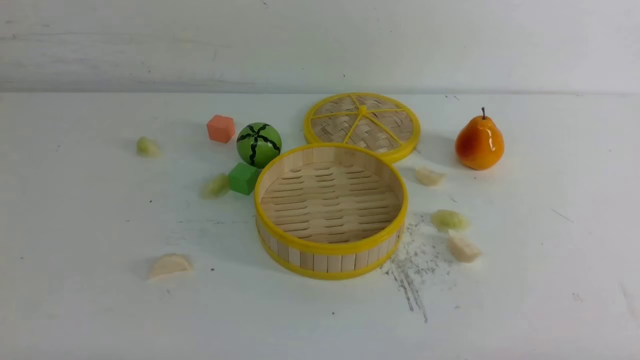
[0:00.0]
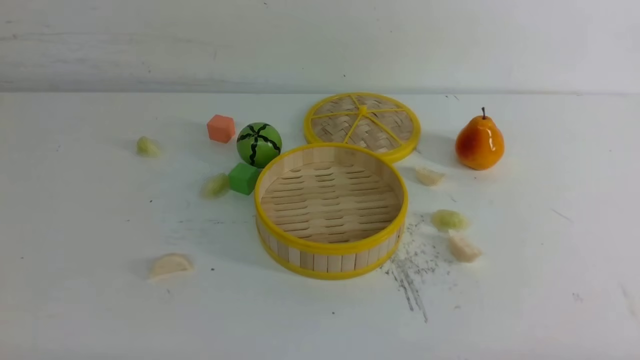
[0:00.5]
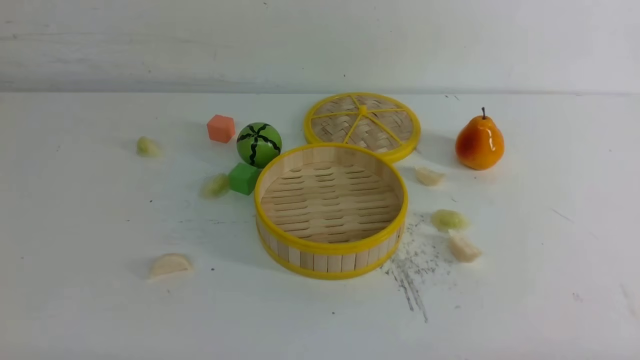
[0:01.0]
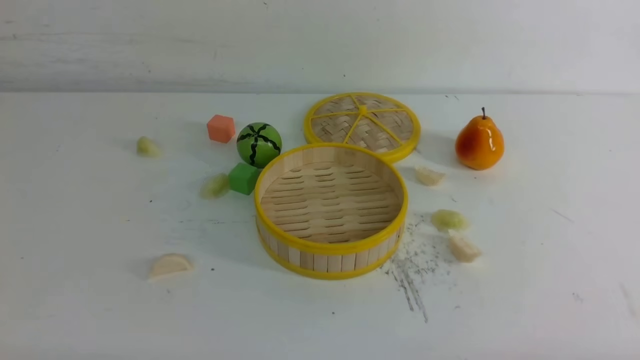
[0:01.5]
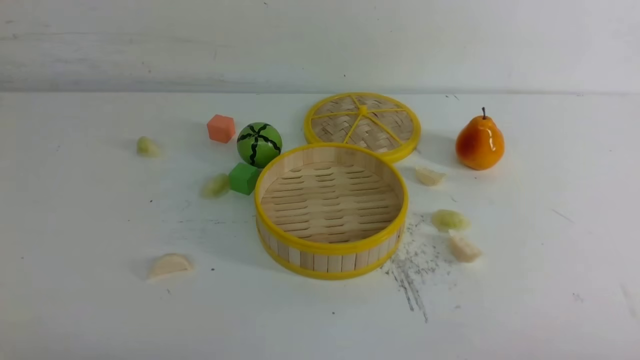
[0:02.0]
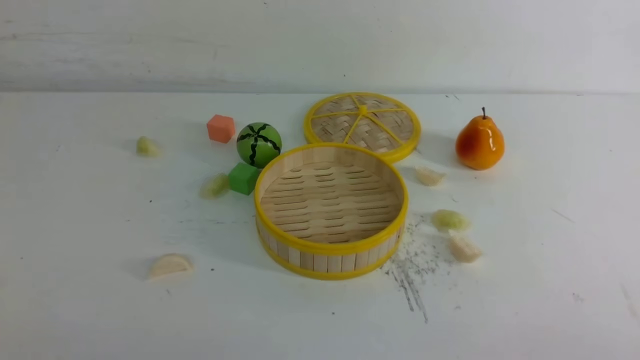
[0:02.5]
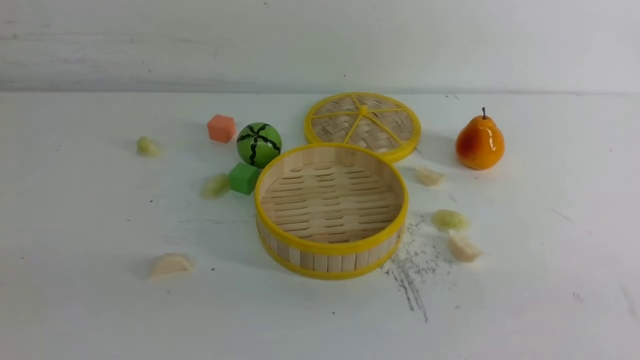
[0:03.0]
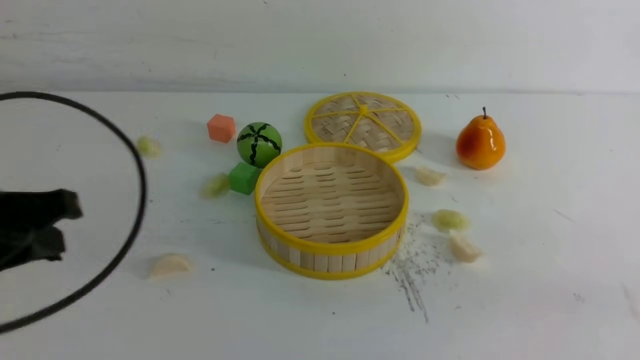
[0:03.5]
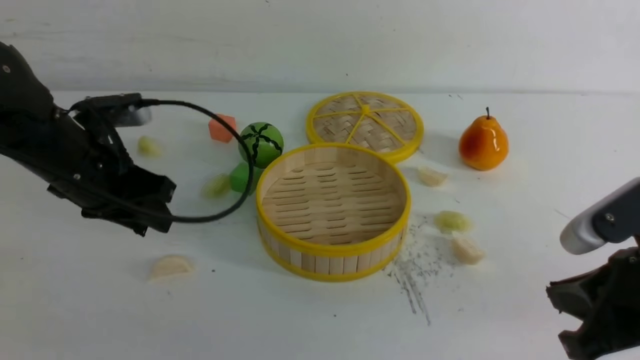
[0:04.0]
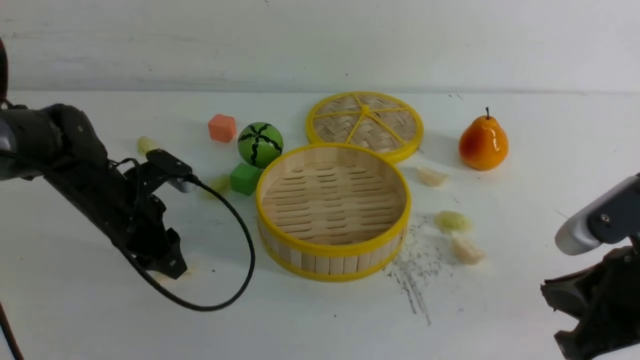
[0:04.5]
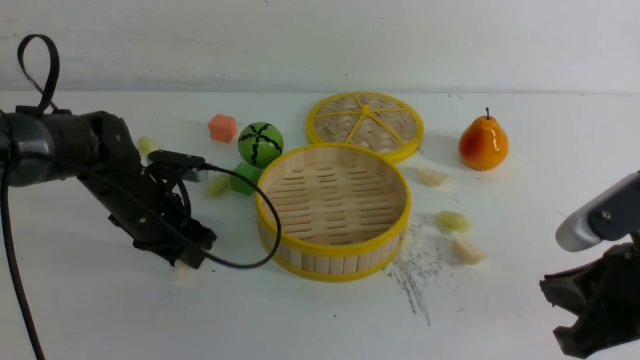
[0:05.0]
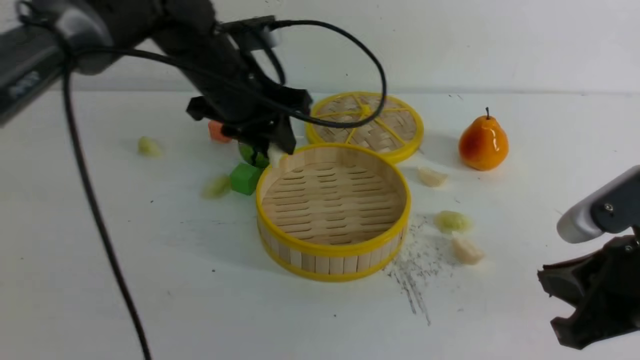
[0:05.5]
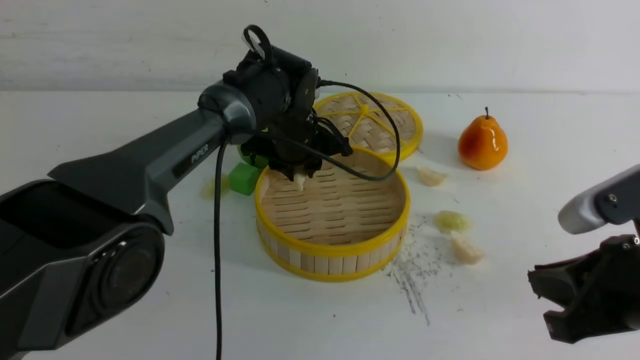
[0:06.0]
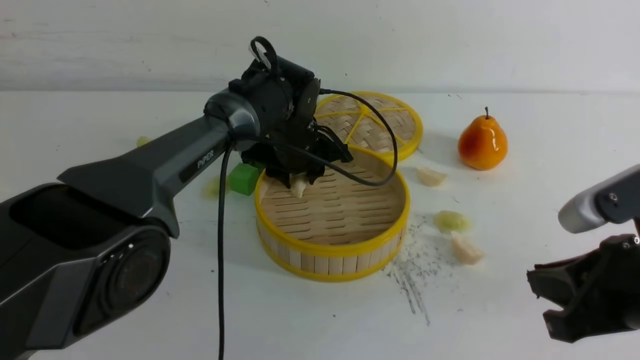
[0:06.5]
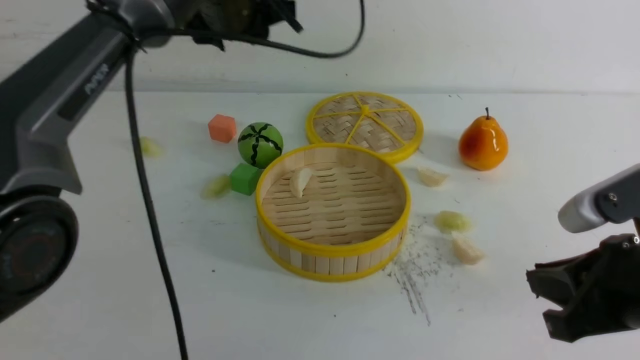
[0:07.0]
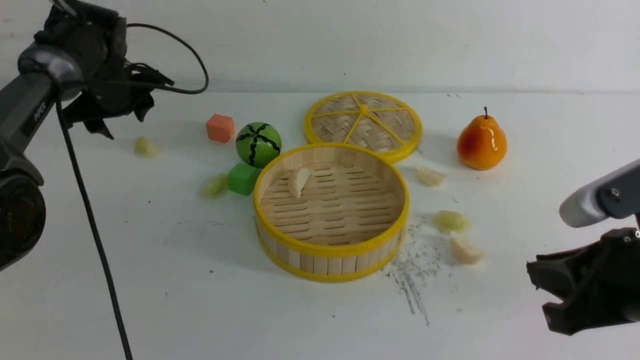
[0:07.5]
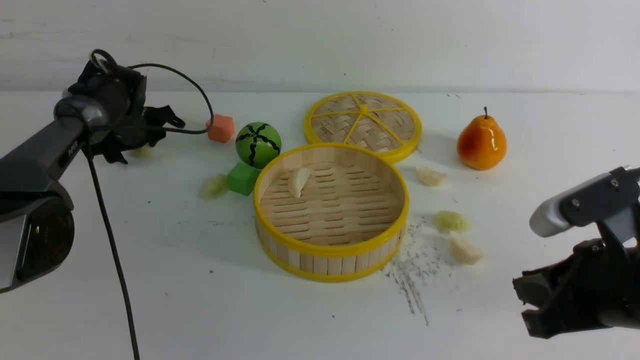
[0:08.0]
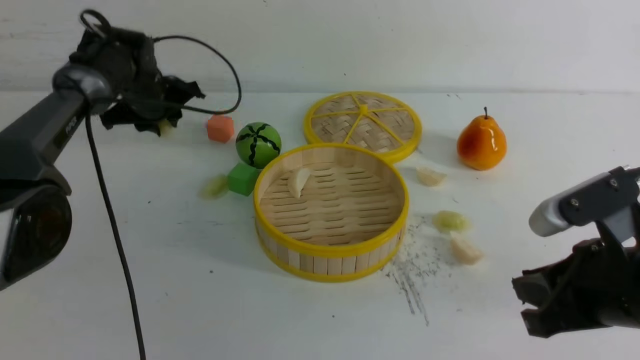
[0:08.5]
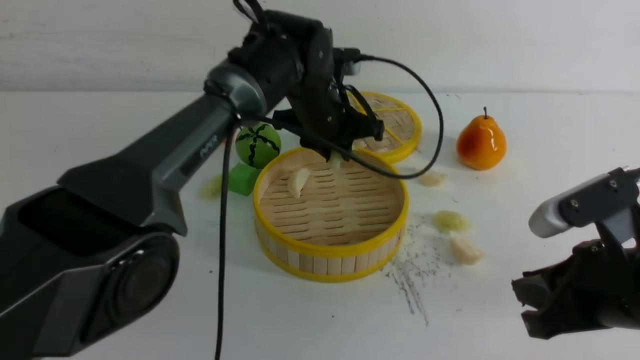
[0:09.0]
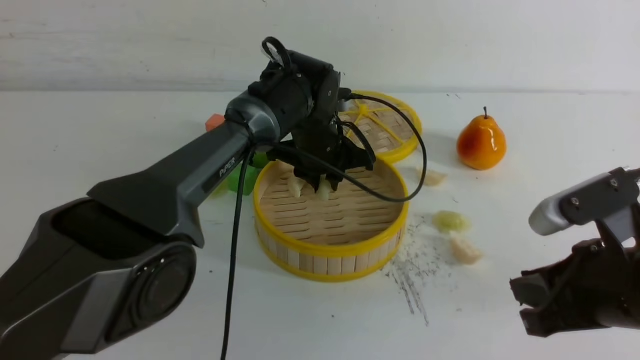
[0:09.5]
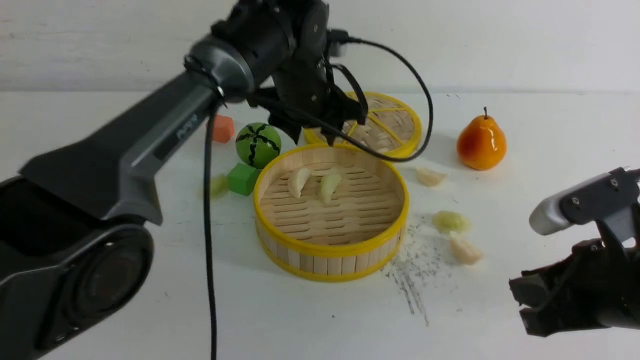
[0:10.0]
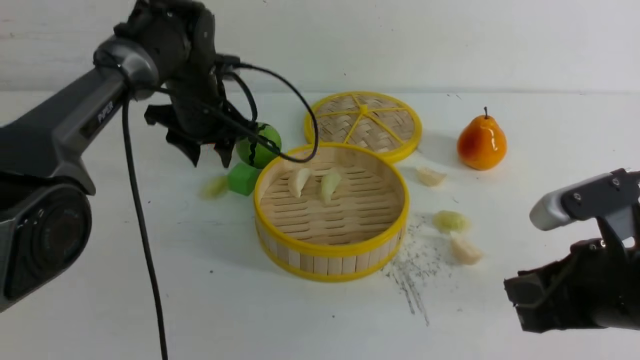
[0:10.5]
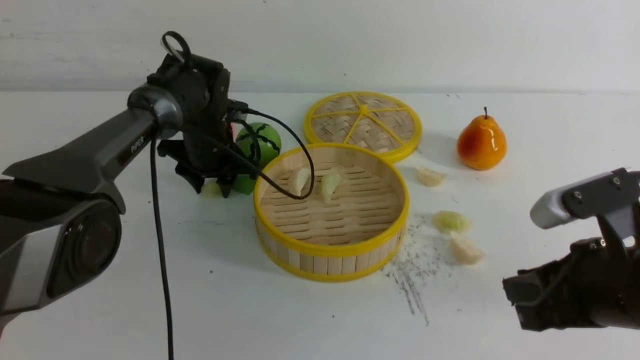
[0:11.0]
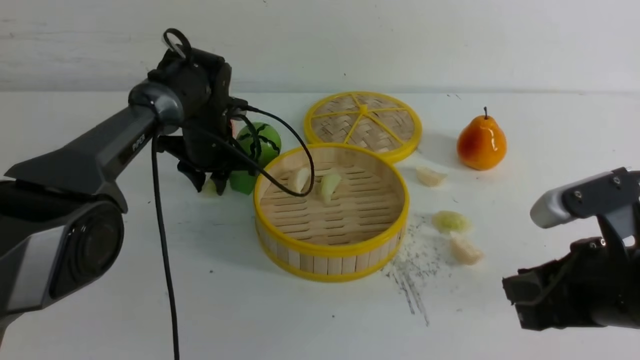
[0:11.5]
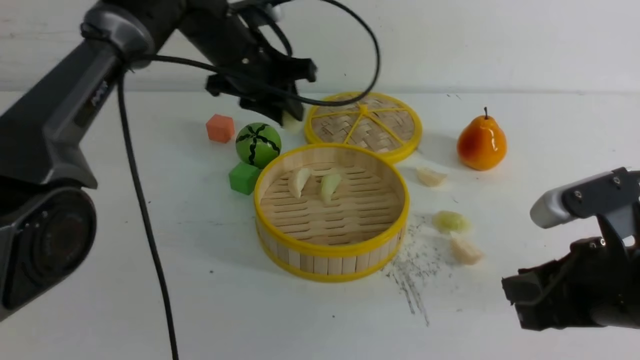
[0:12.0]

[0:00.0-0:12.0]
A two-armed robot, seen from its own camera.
Task of the whole recording: put the dumplings into the steamer on the white table.
Step, 0:00.0 to 0:04.5: use the left arm to grab a dumpling.
Step, 0:05.0 to 0:06.5: use the left arm to put the dumpling into the steamer.
Step, 0:07.0 to 0:08.0: use the left arm to grab a dumpling.
Step, 0:08.5 to 0:09.5: use the left arm to put the dumpling into the steamer.
Step, 0:10.0 to 0:11.0: use the left arm to grab a dumpling.
0:02.0 to 0:04.0: The right gripper travels forward, upward and to the left by some 15 cm, while the left gripper goes approximately 30 cm forward, and closes and opens again.
0:04.0 to 0:06.0: The left gripper is displaced to the right and forward by some 25 cm.
0:06.0 to 0:08.0: The left gripper heads to the left, covering approximately 25 cm.
0:08.0 to 0:10.0: The left gripper goes roughly 30 cm to the right, upward and backward.
0:10.0 to 0:12.0: The left gripper travels downward and back again, some 10 cm each way, and closes its fingers.

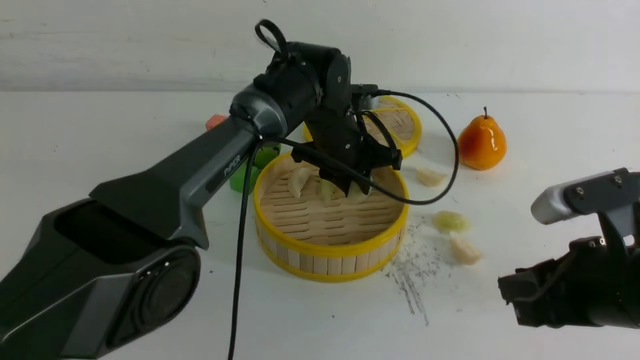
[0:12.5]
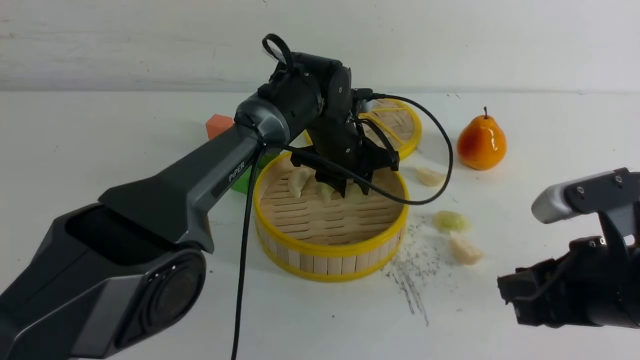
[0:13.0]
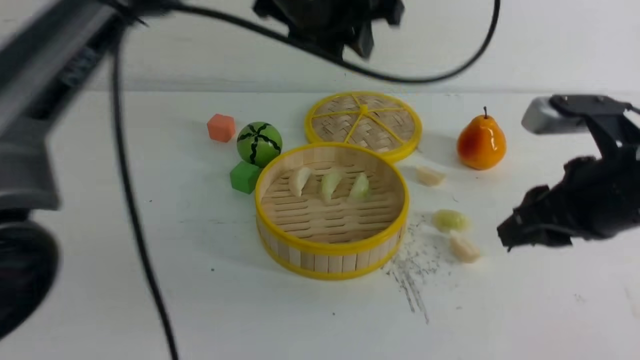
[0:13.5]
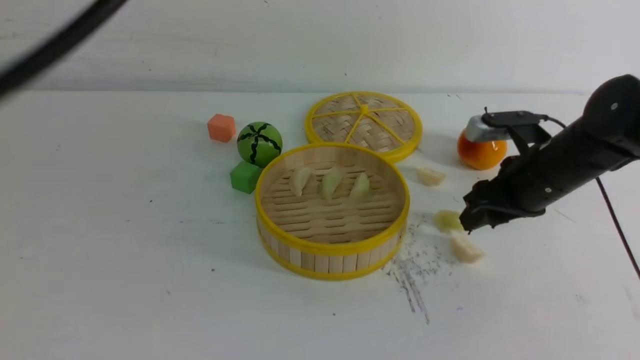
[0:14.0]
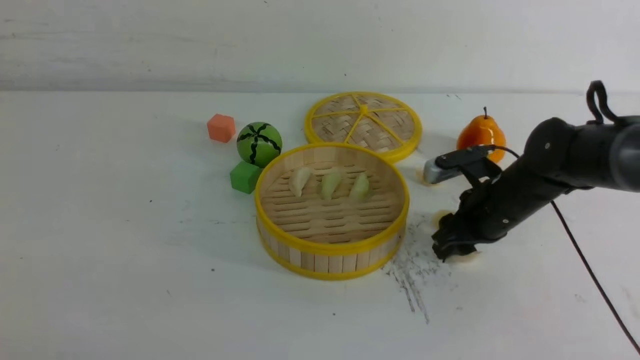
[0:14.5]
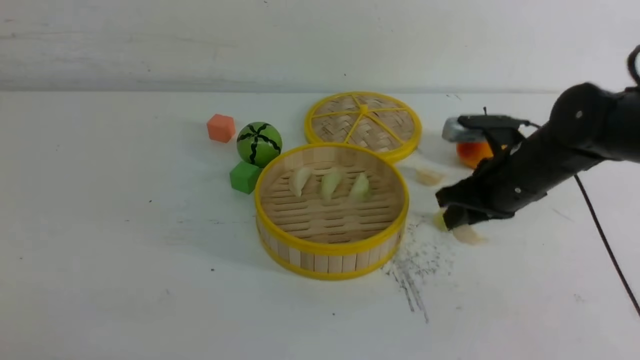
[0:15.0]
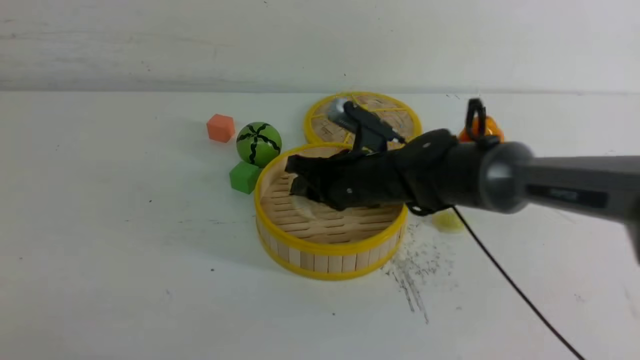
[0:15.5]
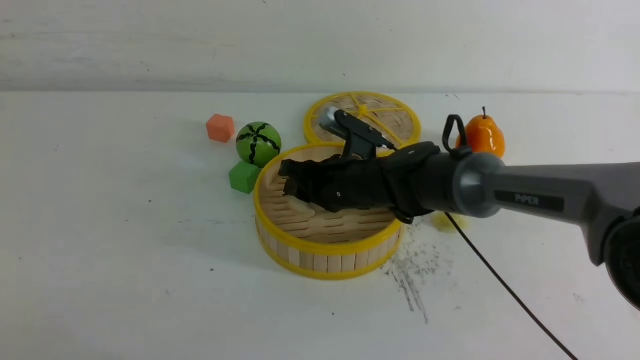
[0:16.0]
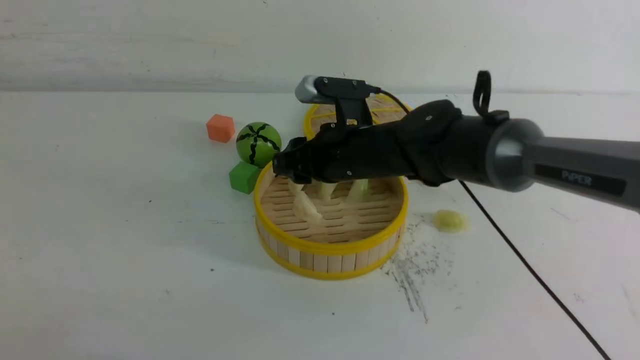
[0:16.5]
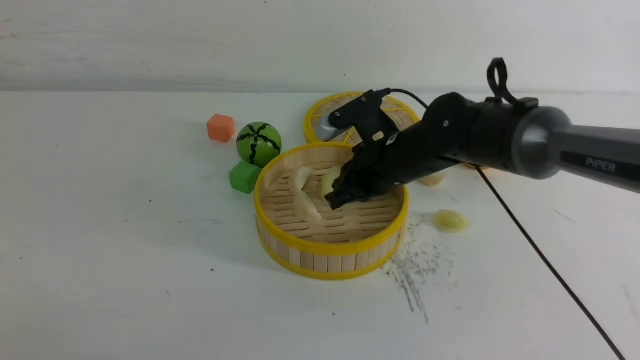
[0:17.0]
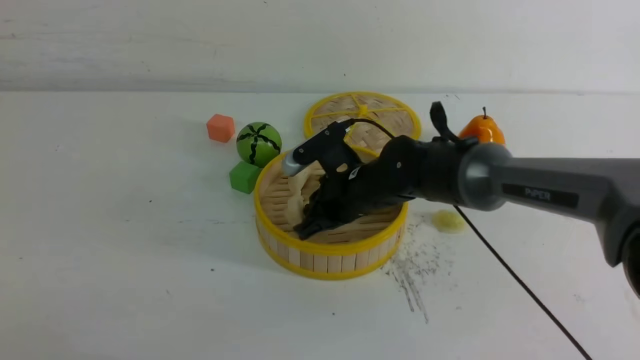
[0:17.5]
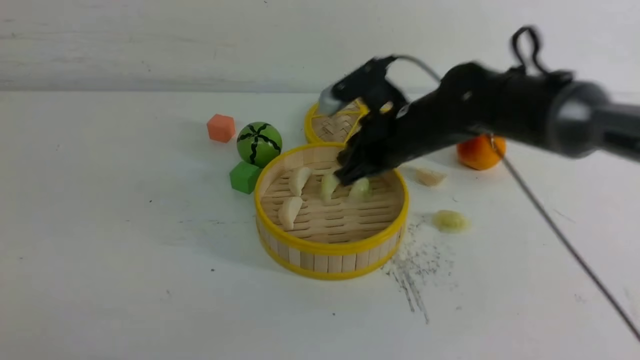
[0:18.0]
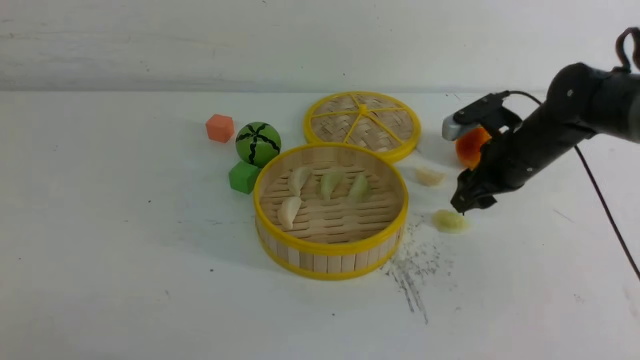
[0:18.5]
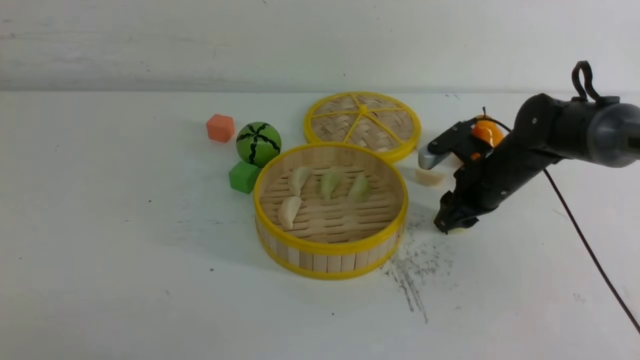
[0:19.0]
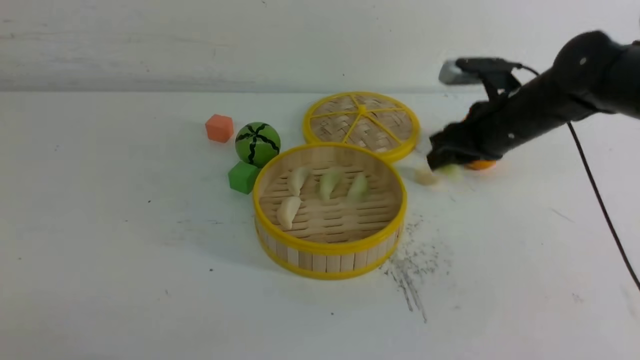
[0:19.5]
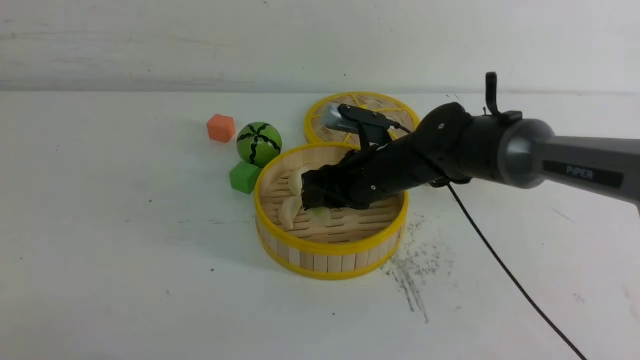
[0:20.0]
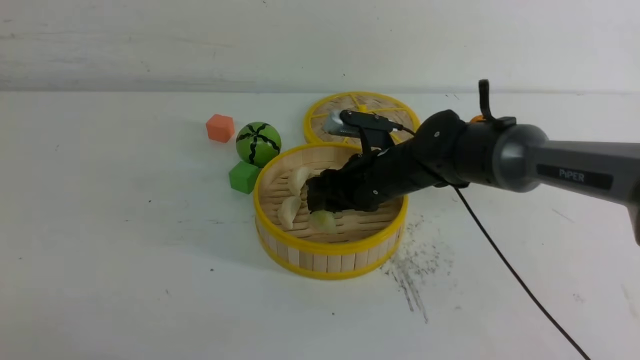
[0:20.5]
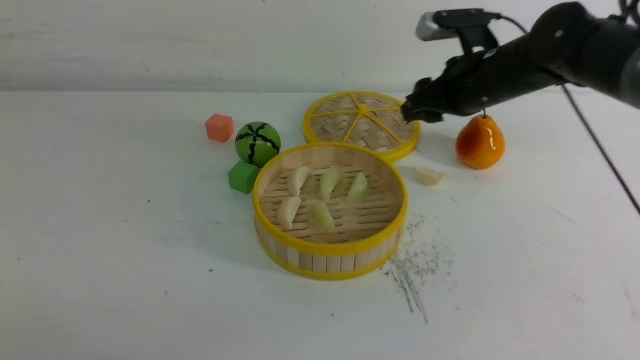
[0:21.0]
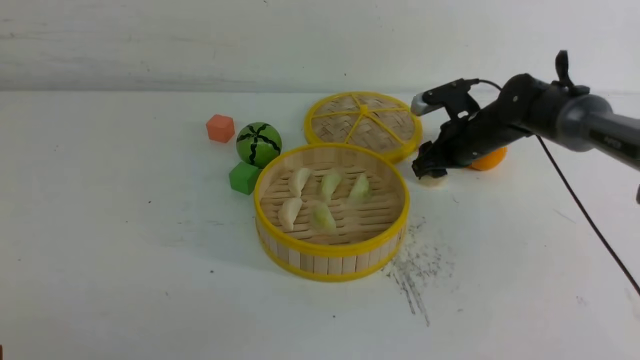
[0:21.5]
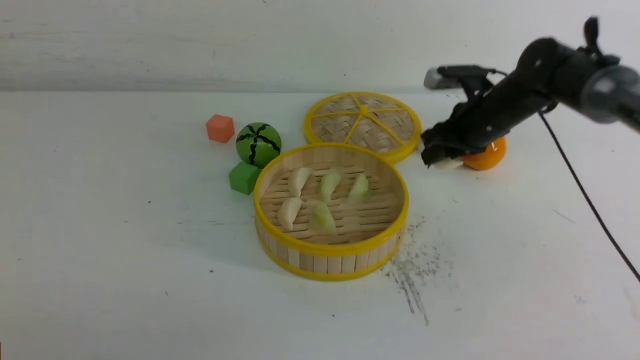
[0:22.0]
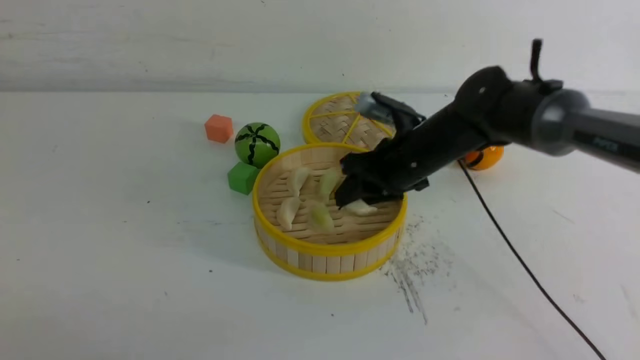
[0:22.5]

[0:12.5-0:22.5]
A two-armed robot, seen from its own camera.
Task of the whole recording: put the dumplings into the steamer on the white table.
Step, 0:13.5 to 0:14.5: use the left arm to grab a dumpling.
0:12.5 to 0:14.5: The right gripper travels forward and downward by approximately 20 cm; the left gripper shifts some 50 cm backward and to the left, and closes.
0:14.5 to 0:16.5: The left gripper moves downward, about 10 cm. The right gripper shifts roughly 15 cm to the left.
0:16.5 to 0:18.5: The right gripper goes approximately 20 cm to the right, and opens its fingers.
0:18.5 to 0:20.5: The right gripper goes some 15 cm to the left.
0:20.5 to 0:22.5: The right gripper reaches roughly 15 cm to the right, then returns.
